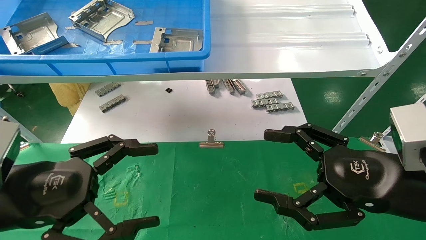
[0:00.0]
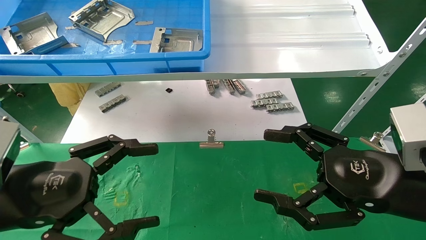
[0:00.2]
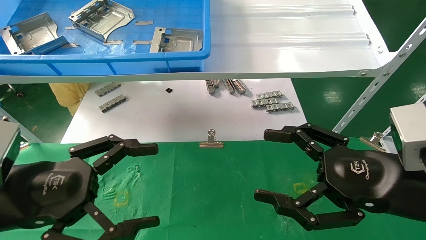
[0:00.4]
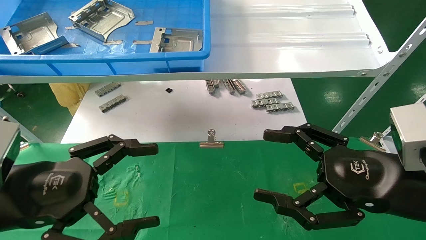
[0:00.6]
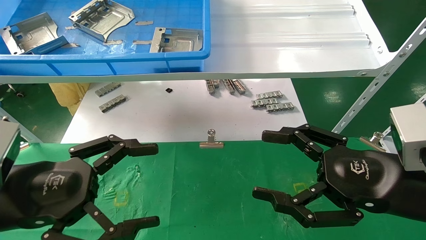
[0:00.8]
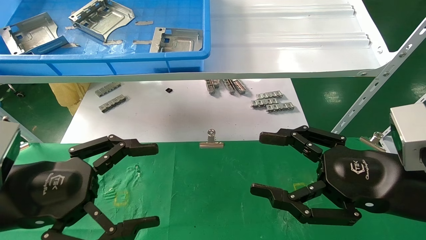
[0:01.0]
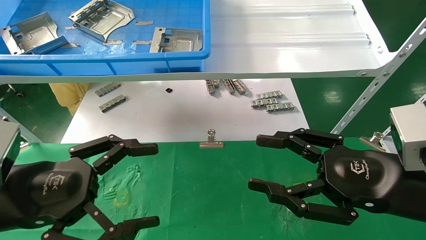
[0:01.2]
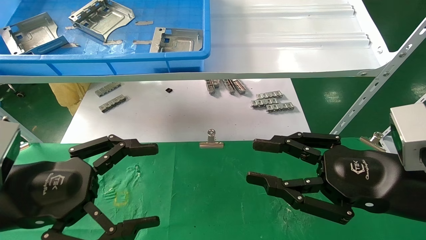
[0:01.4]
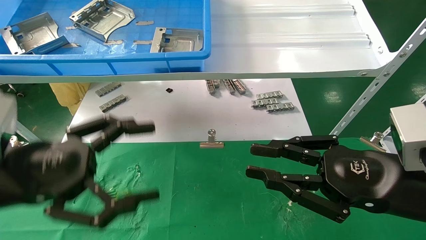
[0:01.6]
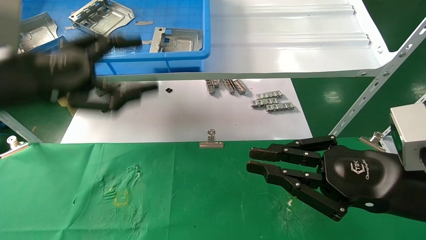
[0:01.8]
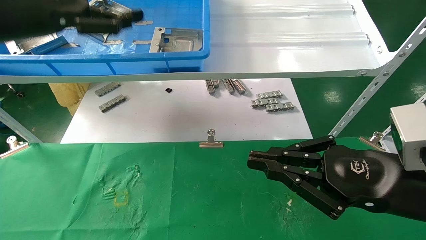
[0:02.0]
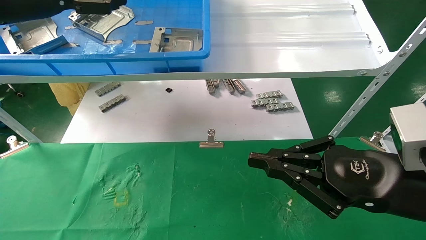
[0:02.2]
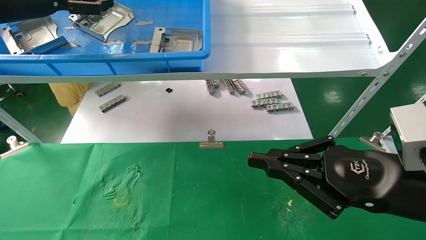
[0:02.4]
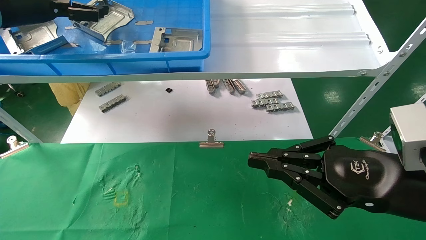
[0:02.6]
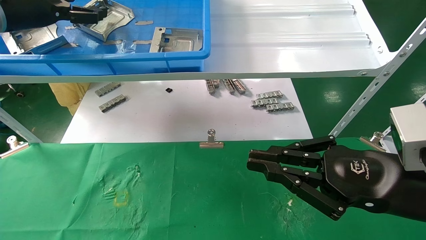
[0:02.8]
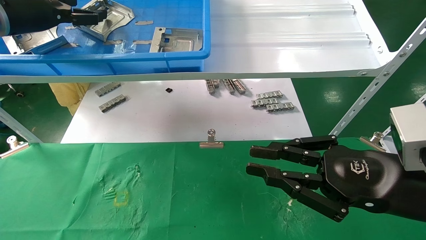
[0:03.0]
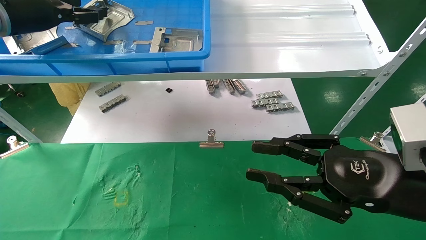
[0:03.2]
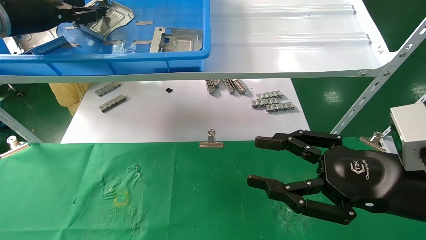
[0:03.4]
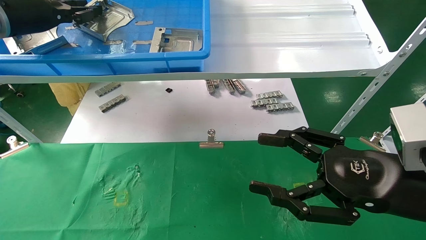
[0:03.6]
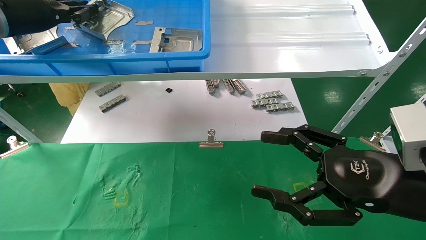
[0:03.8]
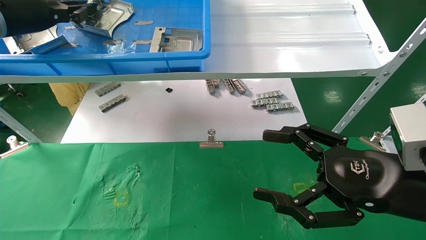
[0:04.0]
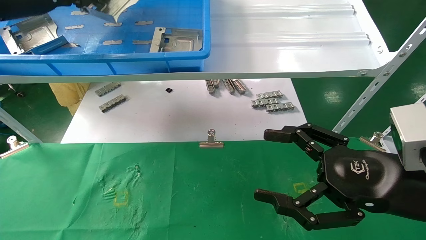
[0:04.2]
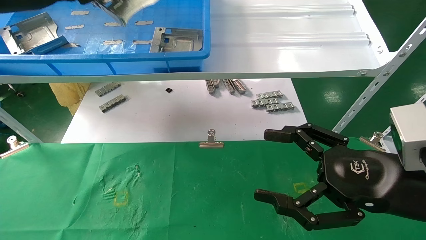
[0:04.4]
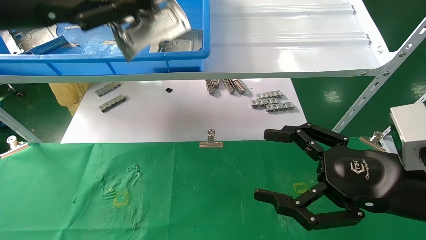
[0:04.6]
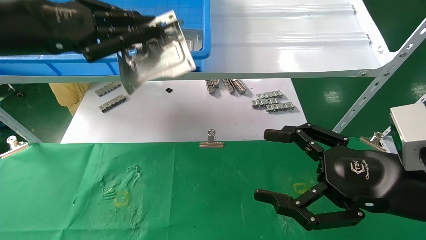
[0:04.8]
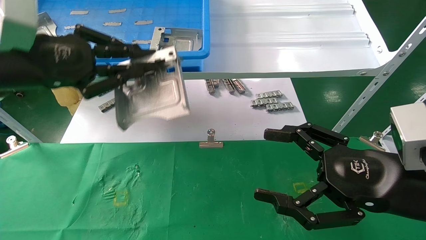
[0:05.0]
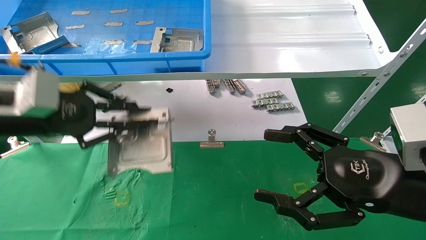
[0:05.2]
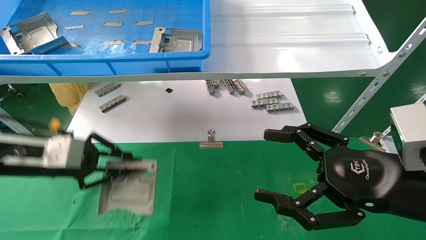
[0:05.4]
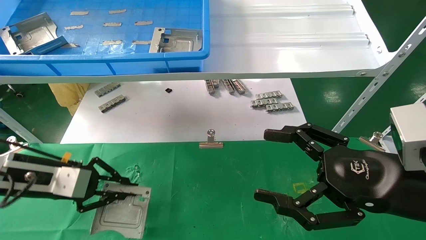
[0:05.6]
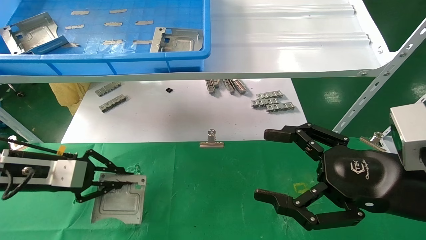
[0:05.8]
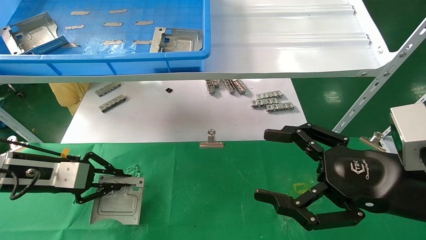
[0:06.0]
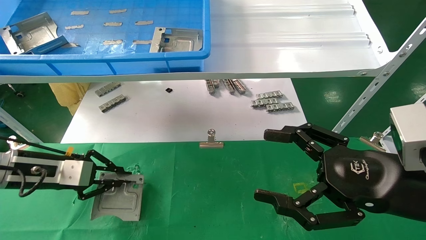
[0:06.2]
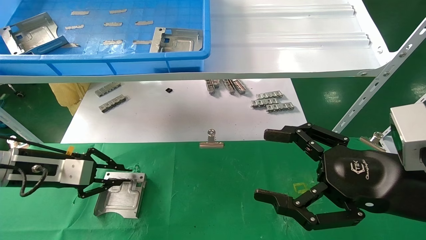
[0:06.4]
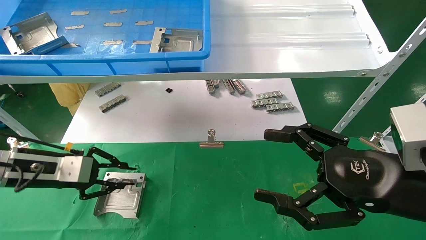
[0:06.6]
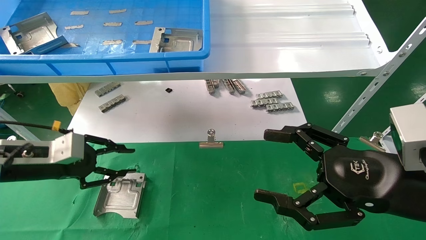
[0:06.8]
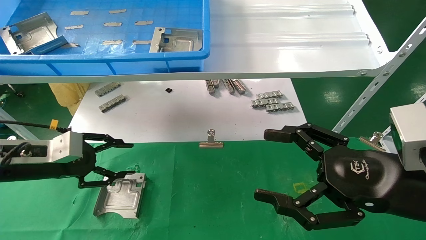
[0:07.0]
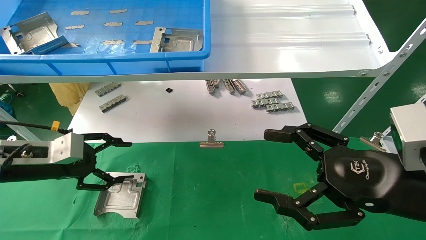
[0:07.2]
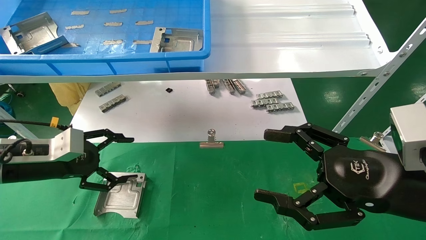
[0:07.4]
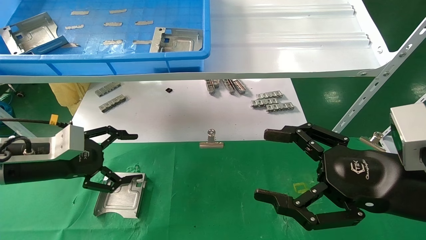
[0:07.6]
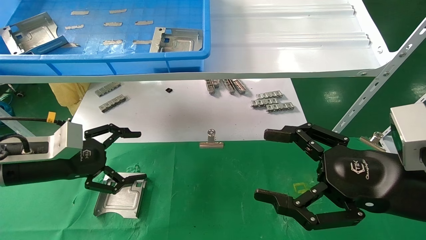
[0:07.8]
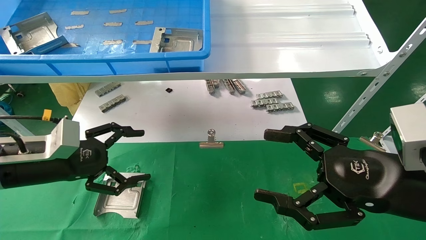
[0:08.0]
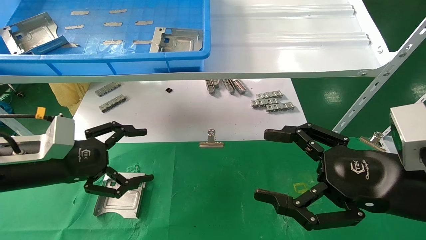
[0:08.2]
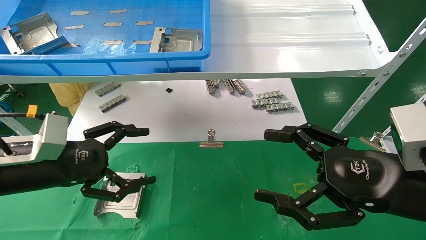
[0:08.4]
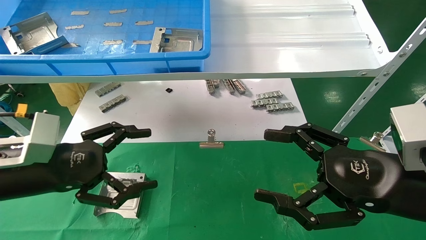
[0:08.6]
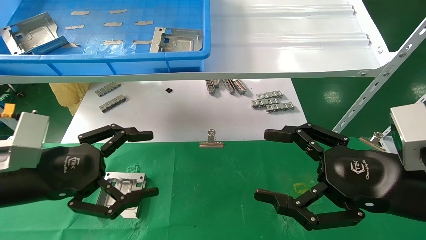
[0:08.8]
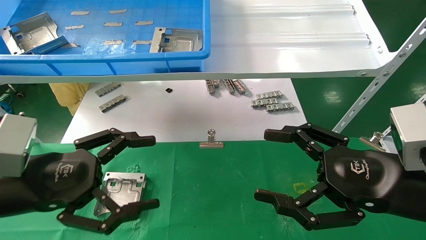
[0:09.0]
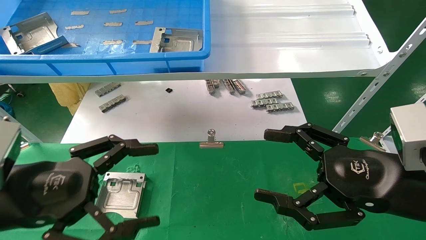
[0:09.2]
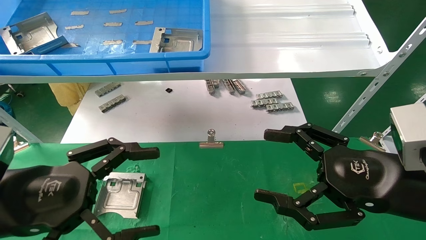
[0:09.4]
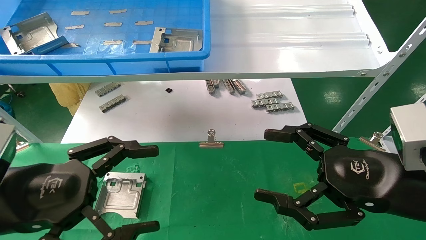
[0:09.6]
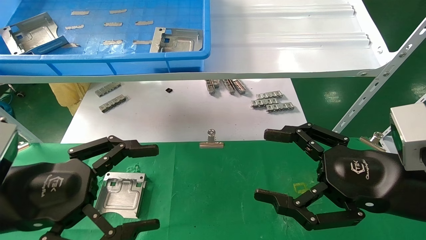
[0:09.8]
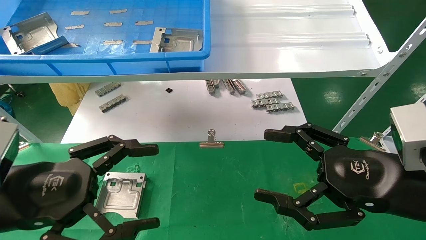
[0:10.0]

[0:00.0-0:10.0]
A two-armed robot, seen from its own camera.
Task of the whole recording: use the mechanical arm to pick up the parts and place them on the table.
Step, 0:01.8 to 0:04.2: Pick up the hard drive bracket from the feeding area.
Step, 0:04.4 to 0:06.8: Place the hard drive bracket into the box.
0:00.0 to 0:01.4: The right gripper closes its fingers.
0:01.4 to 0:02.8: The left gripper heads forward and upward, covering some 30 cm. Meanwhile the right gripper closes its fingers.
0:02.8 to 0:04.2: The left gripper closes its fingers. The right gripper opens up.
0:04.2 to 0:05.8: The left gripper is displaced downward by about 25 cm.
0:05.8 to 0:07.2: The left gripper opens its fingers.
0:07.2 to 0:08.6: The left gripper is displaced backward and to the right by roughly 10 cm, and opens up.
0:08.6 to 0:10.0: The left gripper moves backward, some 5 cm.

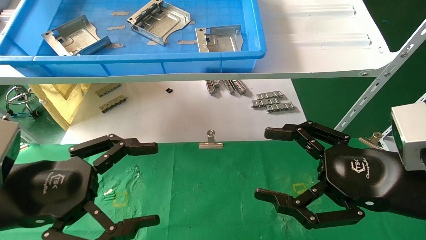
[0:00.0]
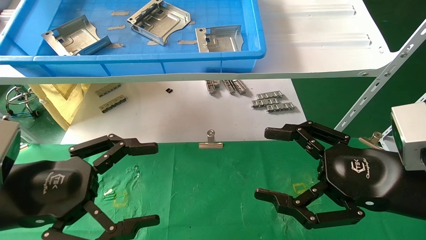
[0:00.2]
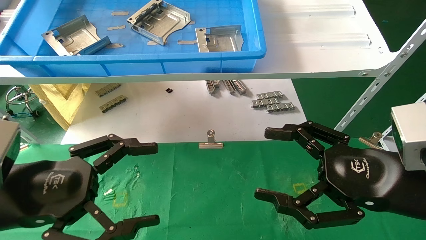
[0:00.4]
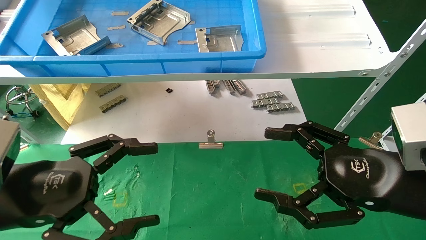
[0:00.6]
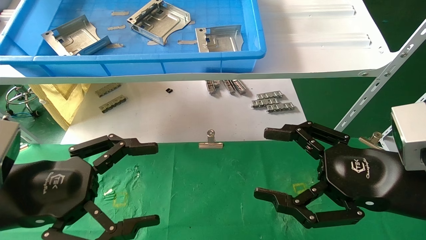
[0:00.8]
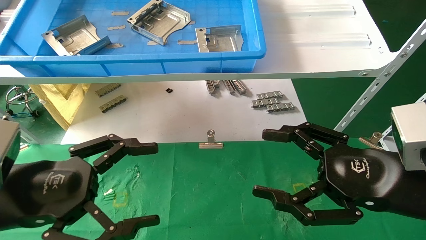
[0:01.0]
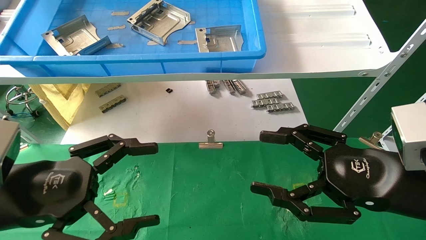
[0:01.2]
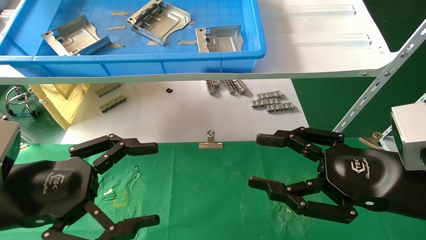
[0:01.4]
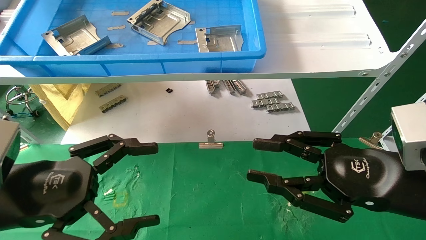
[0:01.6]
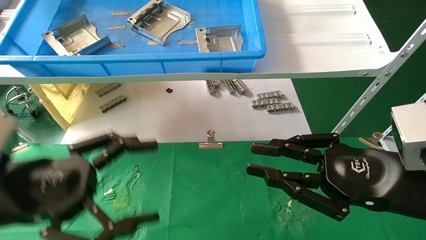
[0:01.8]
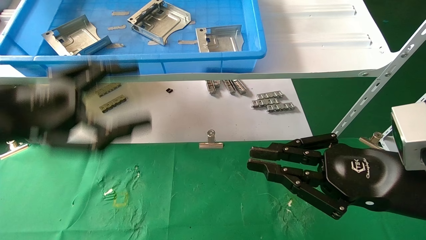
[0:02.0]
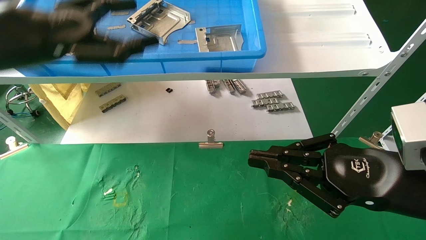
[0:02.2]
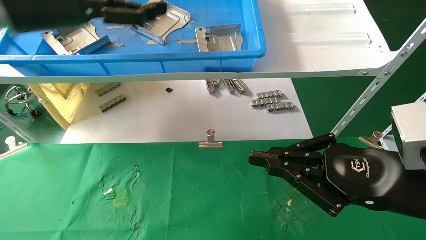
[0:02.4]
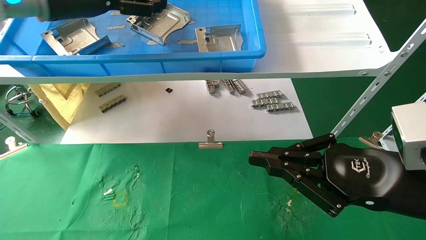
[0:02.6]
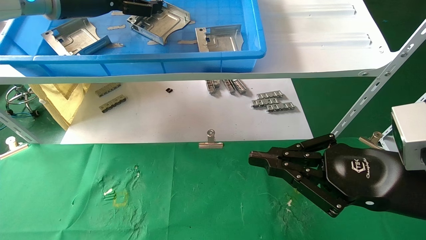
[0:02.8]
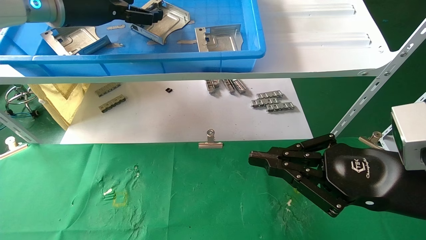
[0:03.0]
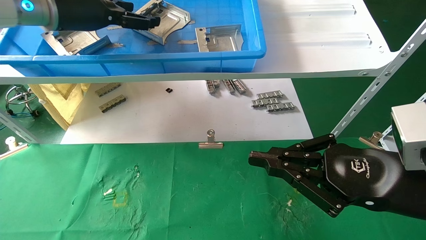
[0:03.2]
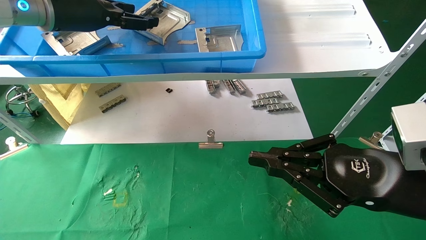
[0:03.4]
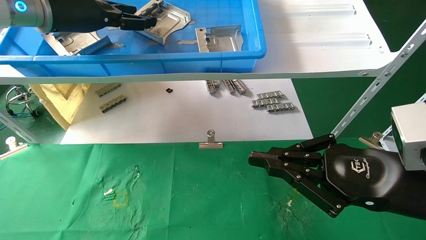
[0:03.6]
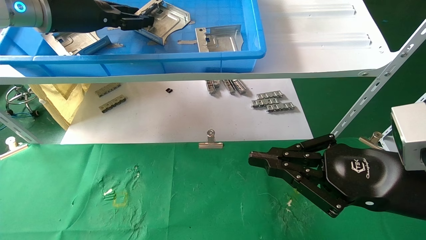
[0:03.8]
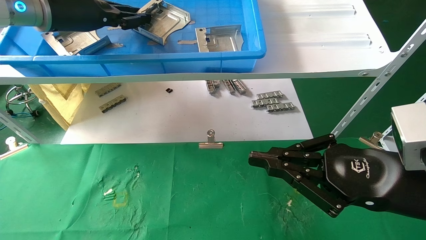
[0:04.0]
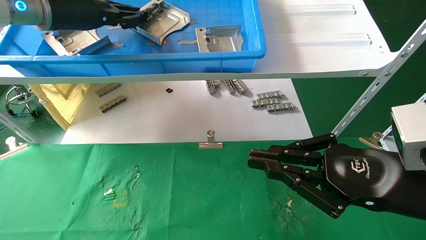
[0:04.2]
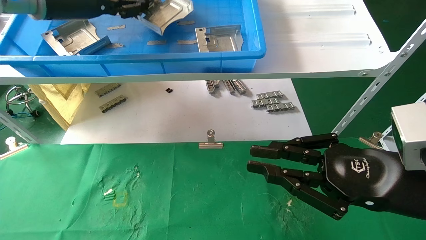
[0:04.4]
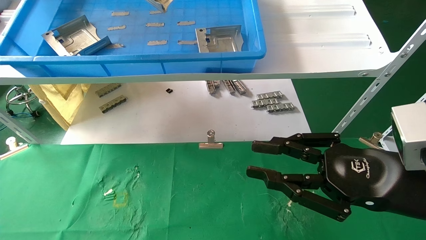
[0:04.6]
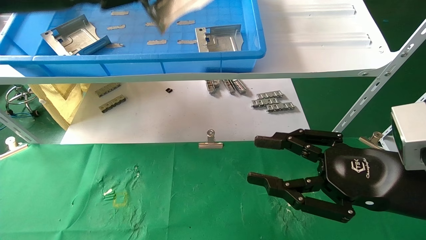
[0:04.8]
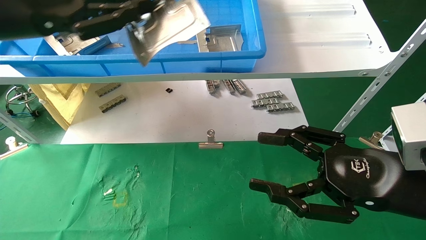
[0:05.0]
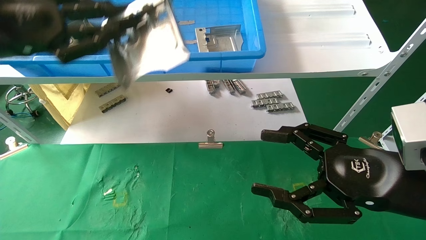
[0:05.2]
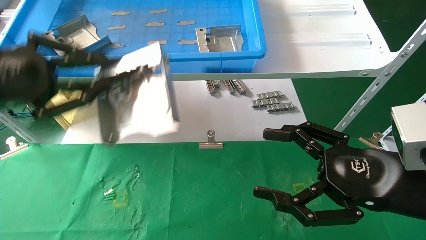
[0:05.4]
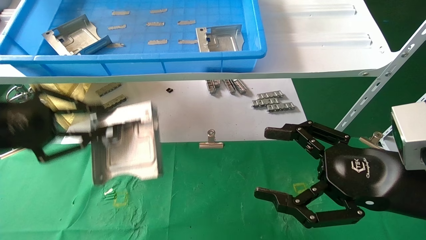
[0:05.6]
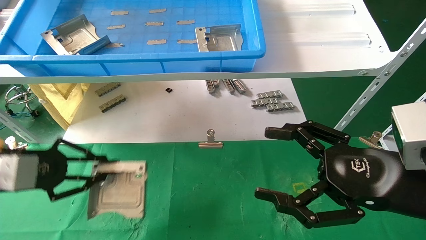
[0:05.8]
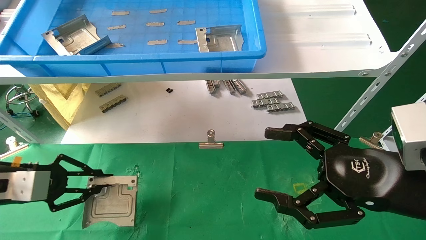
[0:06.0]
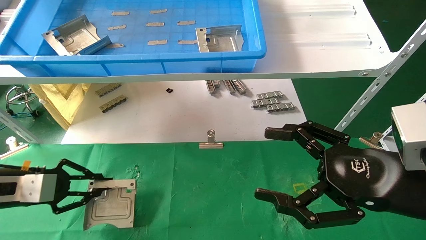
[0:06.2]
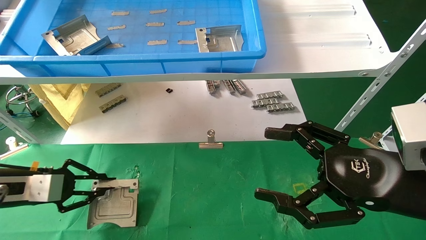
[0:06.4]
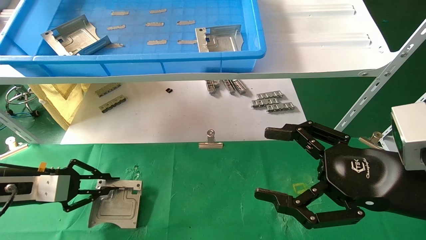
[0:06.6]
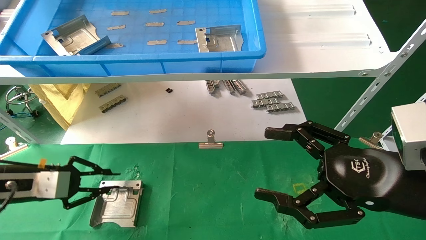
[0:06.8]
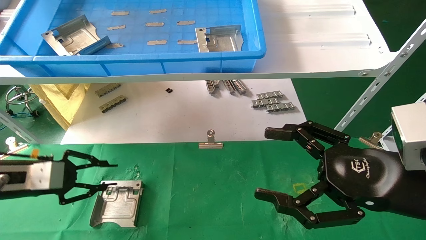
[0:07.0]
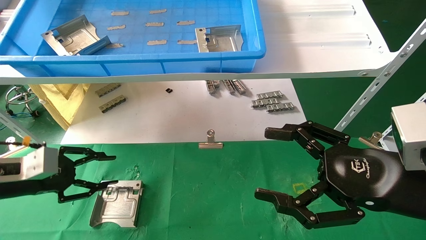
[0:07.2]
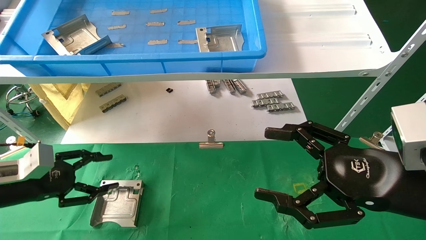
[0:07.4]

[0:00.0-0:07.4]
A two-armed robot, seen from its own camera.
Task of the whole recording: use the mechanical arm to pick up the parts and place them on the table.
Step, 0:02.4 to 0:04.0: Pick up the hard drive bracket from the feeding area.
Step, 0:04.2 to 0:07.0: Place the hard drive bracket into the box.
0:00.0 to 0:01.4: Both grippers stay put.
0:01.4 to 0:03.0: The left gripper is displaced upward and forward by roughly 30 cm. Meanwhile the right gripper closes.
0:03.0 to 0:04.4: The left gripper closes.
0:04.4 to 0:06.0: The left gripper travels downward and to the left by some 30 cm, while the right gripper opens up.
0:06.0 to 0:07.4: The left gripper opens up.
